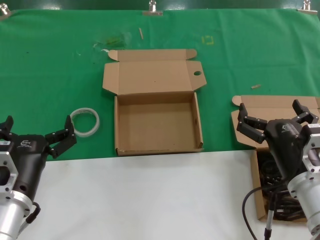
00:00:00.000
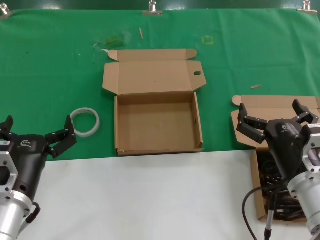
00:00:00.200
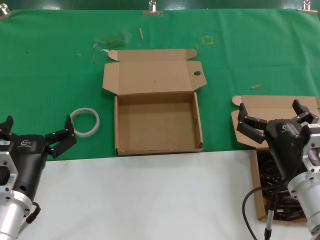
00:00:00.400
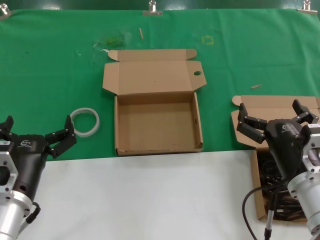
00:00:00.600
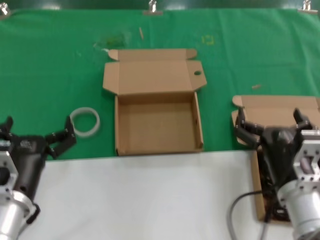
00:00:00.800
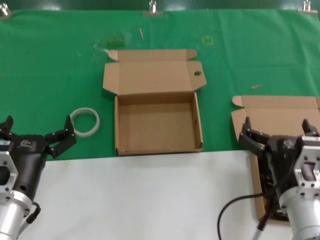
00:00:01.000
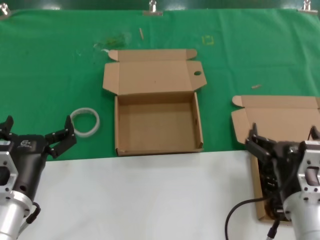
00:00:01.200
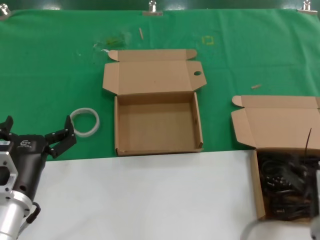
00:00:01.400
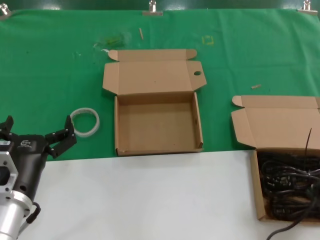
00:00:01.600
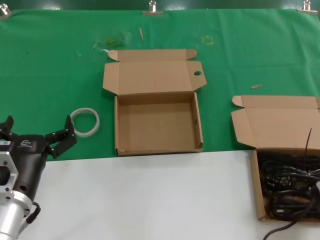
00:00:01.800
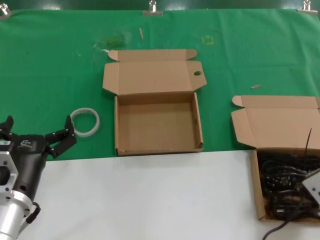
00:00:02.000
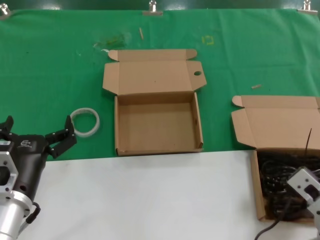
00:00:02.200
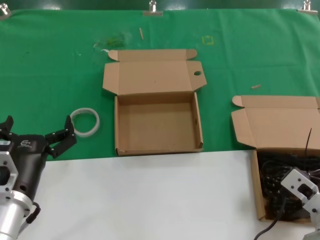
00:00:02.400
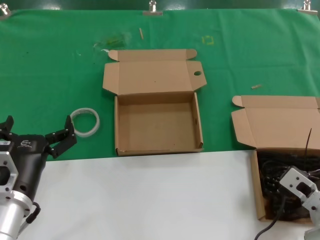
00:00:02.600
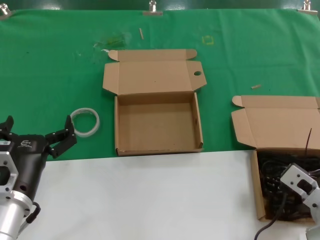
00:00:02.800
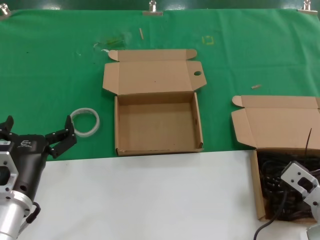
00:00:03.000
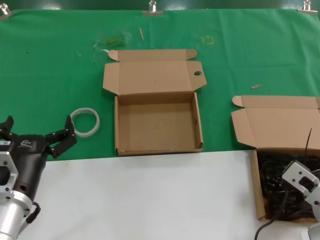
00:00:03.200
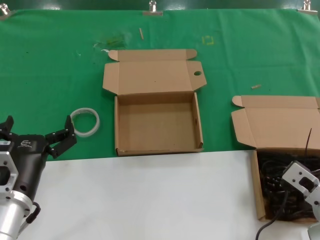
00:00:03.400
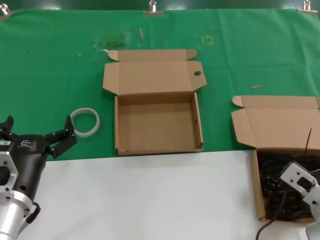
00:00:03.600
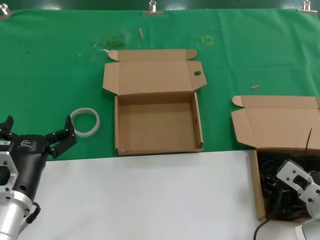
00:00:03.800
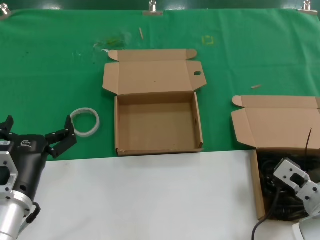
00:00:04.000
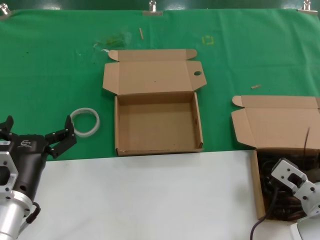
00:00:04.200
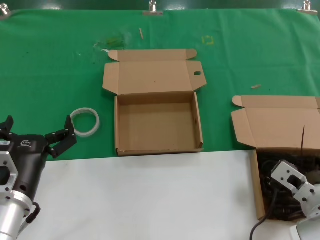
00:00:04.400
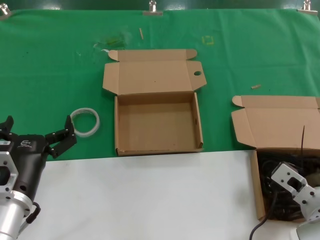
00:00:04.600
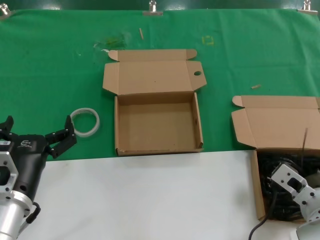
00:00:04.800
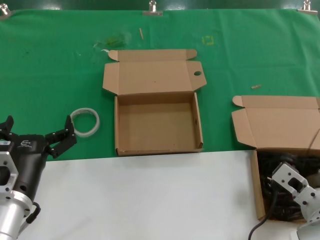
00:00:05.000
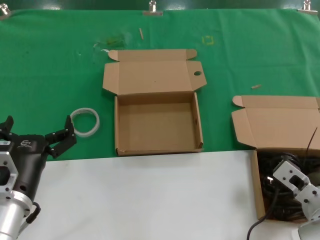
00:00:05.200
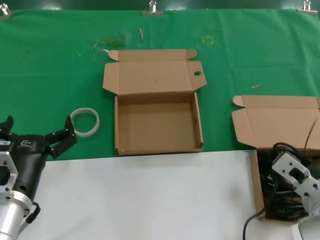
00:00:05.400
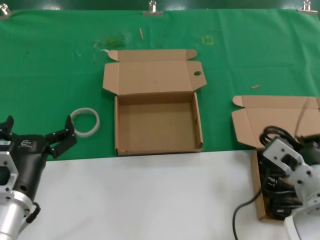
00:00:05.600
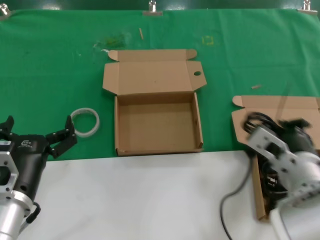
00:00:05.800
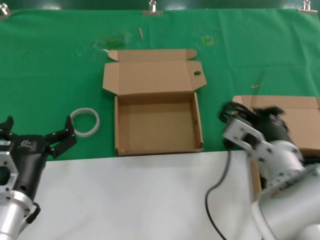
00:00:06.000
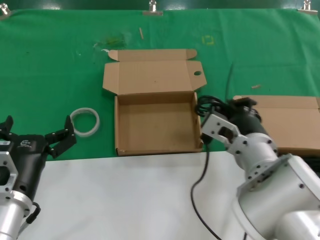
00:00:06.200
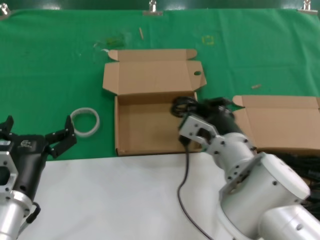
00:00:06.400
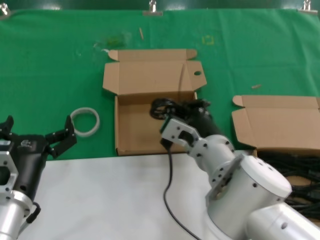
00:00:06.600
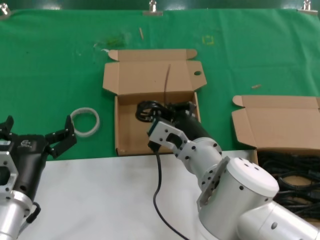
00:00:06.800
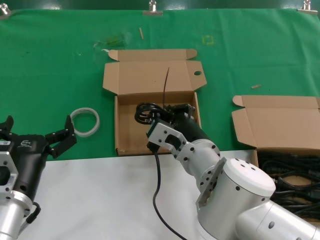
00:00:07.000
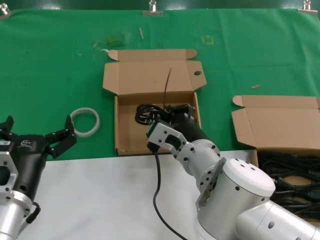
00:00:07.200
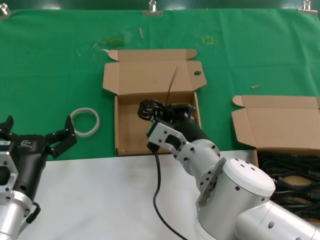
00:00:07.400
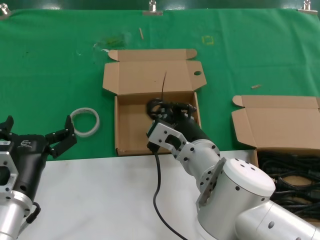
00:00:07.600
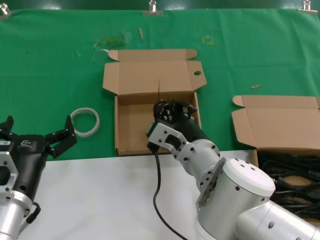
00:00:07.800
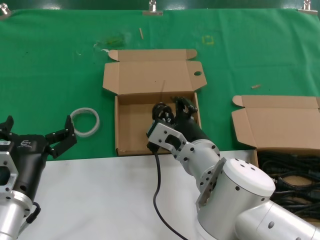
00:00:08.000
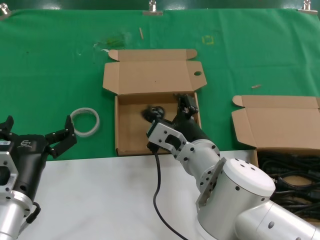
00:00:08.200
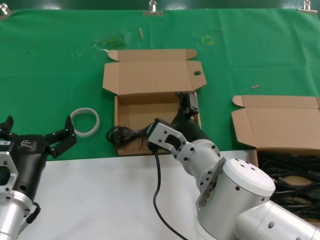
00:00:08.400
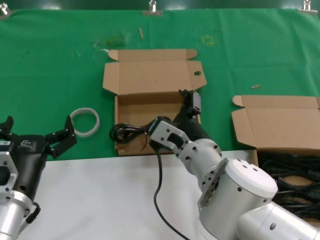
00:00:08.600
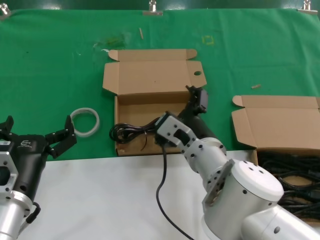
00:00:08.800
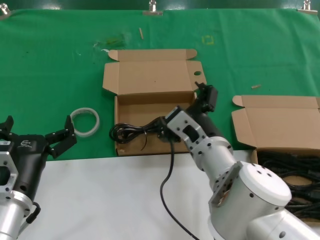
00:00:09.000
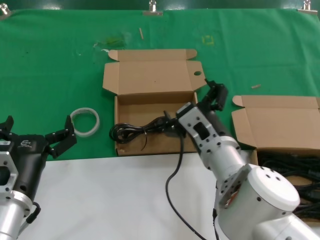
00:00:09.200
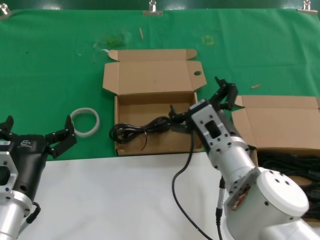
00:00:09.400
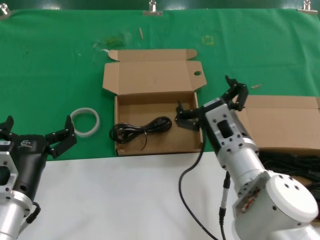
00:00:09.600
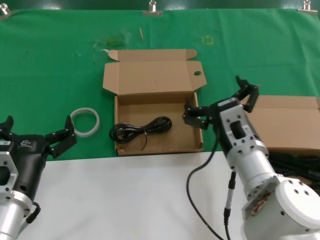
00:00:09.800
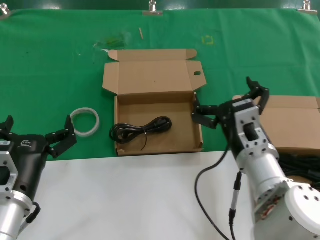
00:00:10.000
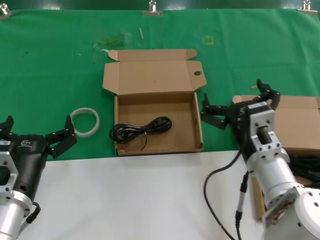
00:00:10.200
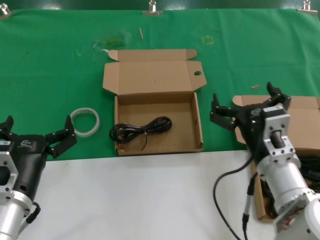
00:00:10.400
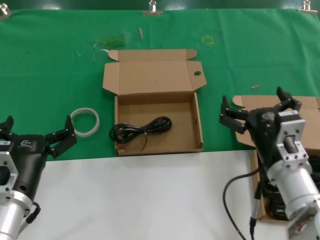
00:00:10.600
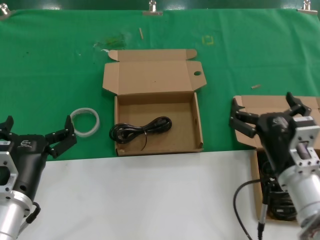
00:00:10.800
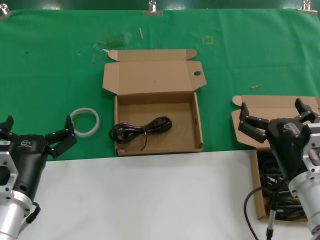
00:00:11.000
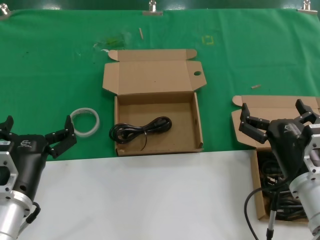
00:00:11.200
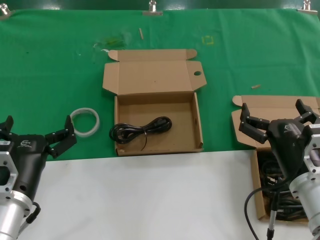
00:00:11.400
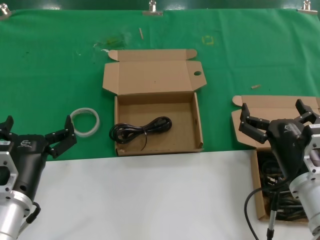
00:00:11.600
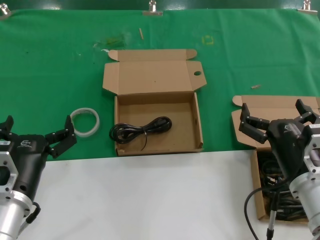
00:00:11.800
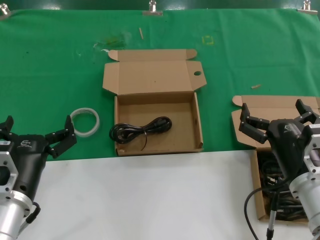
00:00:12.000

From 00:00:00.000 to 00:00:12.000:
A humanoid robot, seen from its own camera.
Task of the whole recording: take the parts from the box containing them and put them into an empty box.
Step, from 00:00:00.000 to 00:00:05.000: Grasp the data cable.
Step, from 00:00:05.200 to 00:00:07.800: Place the data cable in the another box.
From 00:00:00.000 to 00:00:01.600: The right hand travels backward by some 10 cm.
From 00:00:01.600 to 00:00:03.000: The right hand moves forward, about 10 cm.
From 00:00:03.000 to 00:00:04.400: The hands move only a little.
From 00:00:04.400 to 00:00:06.000: The right hand goes some 10 cm to the left and upward.
From 00:00:06.000 to 00:00:07.600: The right hand is displaced to the left by approximately 10 cm.
From 00:00:07.600 to 00:00:09.000: There are only small adjustments of the hands.
From 00:00:09.000 to 00:00:10.400: The right hand travels to the right by some 10 cm.
From 00:00:10.400 to 00:00:12.000: The right hand heads to the right, covering some 5 cm.

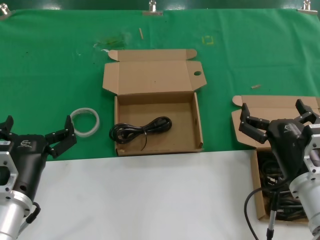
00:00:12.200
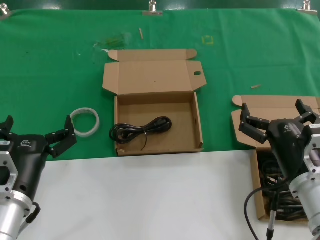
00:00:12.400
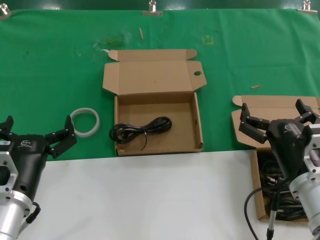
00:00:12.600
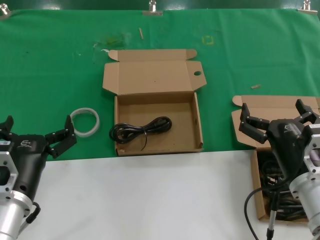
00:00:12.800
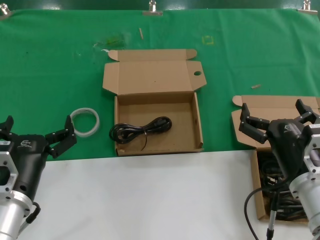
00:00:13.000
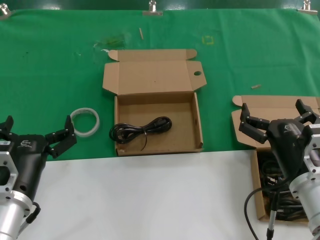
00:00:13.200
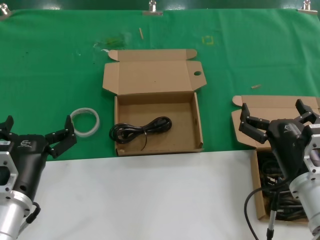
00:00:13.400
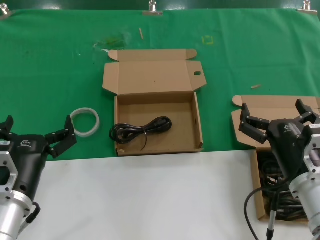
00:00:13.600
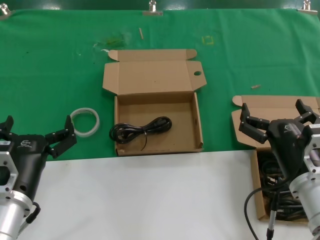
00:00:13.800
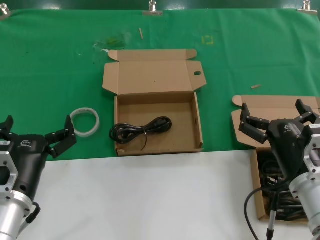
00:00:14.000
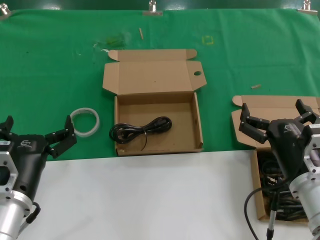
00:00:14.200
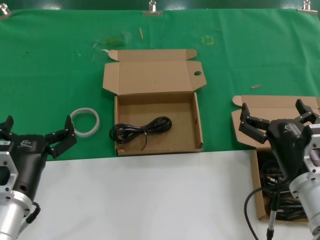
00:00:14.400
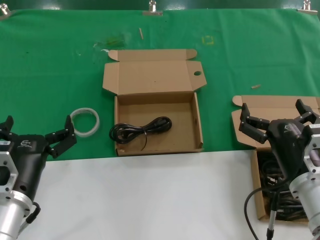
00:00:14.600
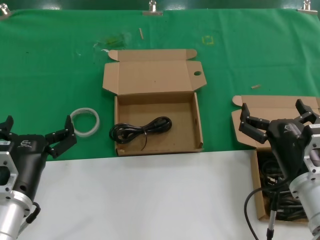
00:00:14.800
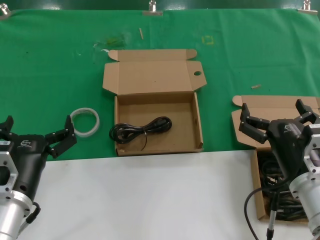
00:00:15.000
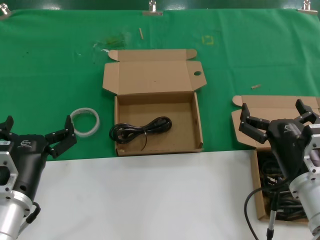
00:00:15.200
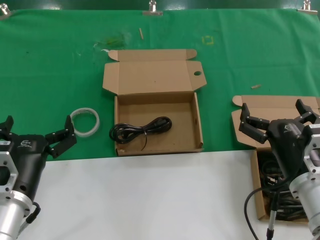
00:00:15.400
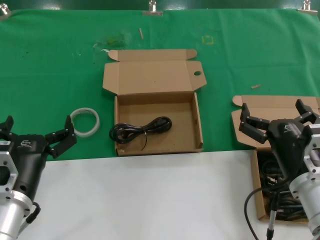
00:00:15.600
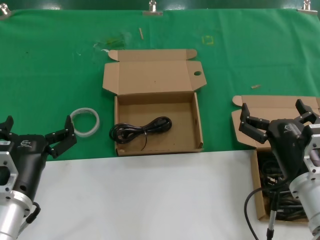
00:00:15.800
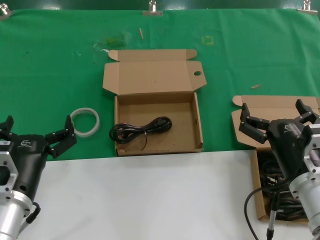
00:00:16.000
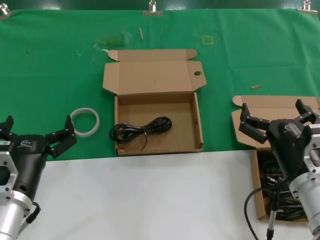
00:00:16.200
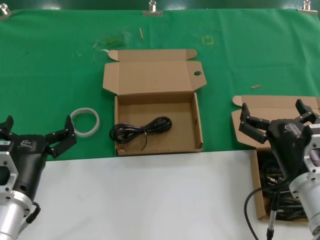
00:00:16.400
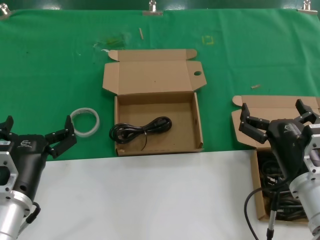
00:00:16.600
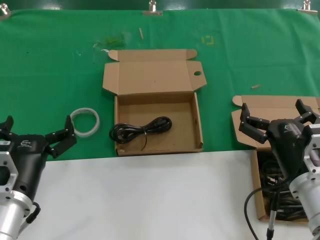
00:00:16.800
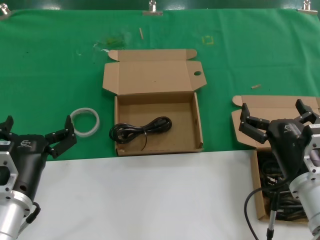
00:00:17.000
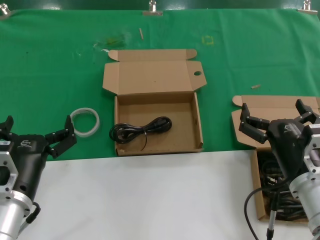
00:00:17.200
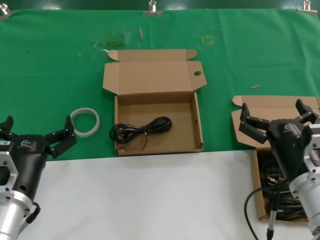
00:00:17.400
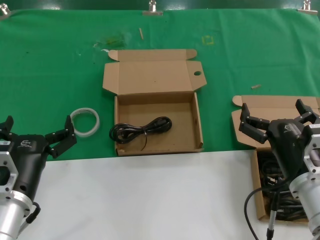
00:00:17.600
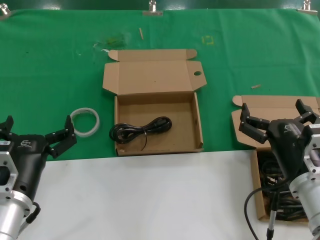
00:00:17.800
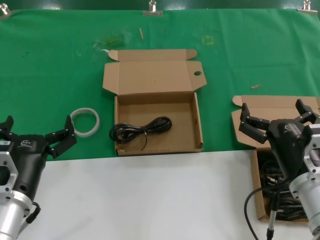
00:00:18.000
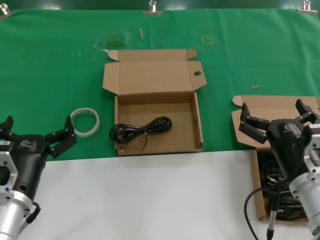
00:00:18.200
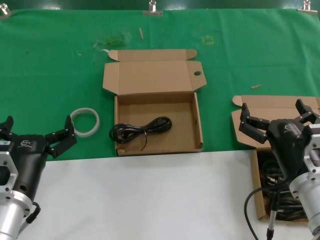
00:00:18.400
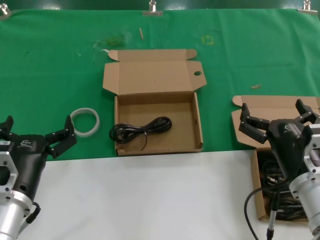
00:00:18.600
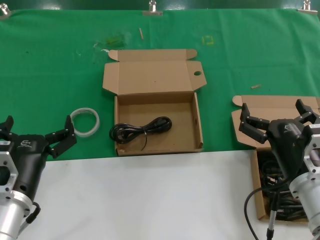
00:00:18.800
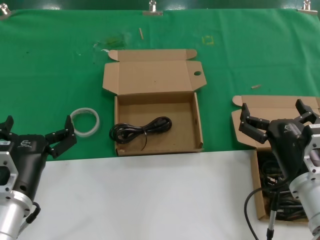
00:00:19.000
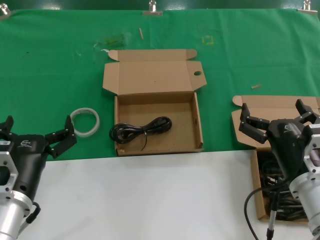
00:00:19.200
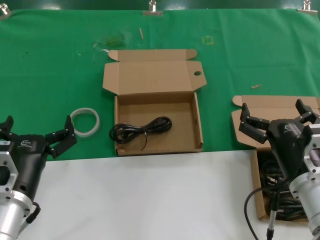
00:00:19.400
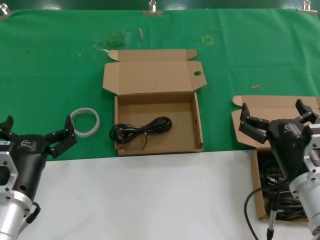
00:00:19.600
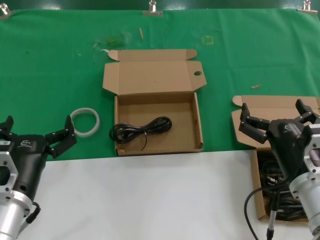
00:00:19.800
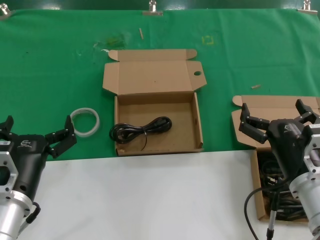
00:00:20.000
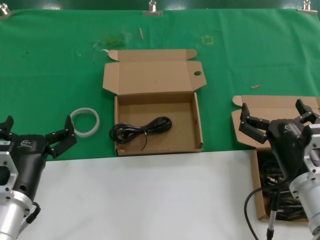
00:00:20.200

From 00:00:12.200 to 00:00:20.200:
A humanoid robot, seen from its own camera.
Task of the whole recording: take the parts from the box containing them and put them into an empty box.
From 00:00:12.200 to 00:00:20.200: Both hands stay put.
